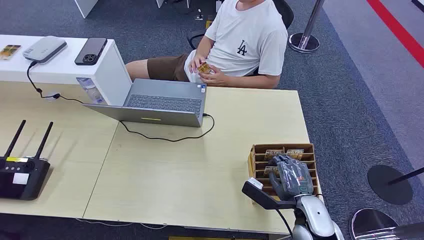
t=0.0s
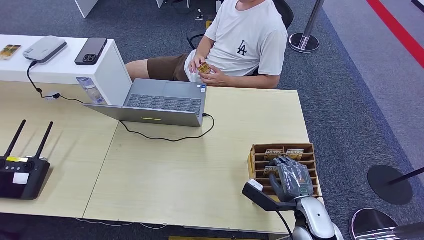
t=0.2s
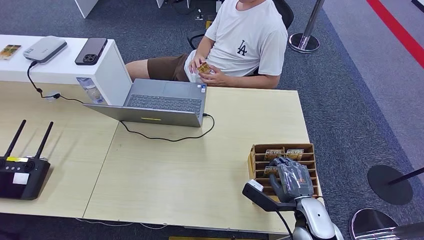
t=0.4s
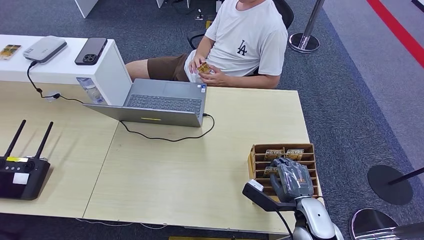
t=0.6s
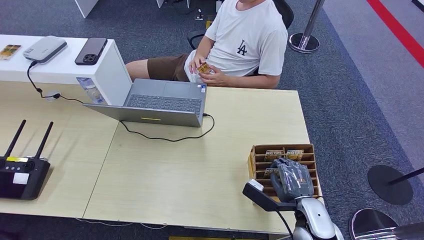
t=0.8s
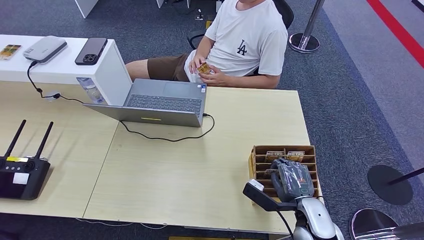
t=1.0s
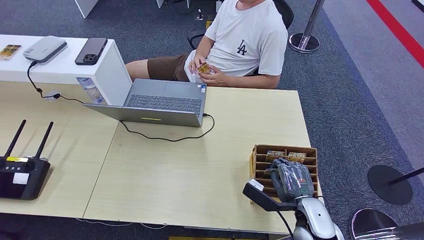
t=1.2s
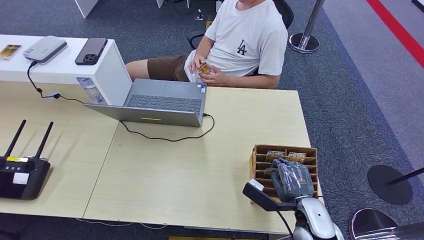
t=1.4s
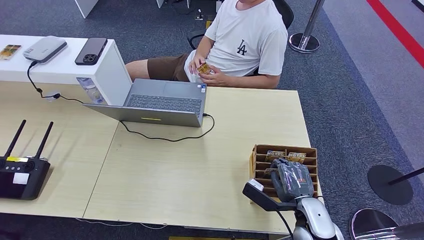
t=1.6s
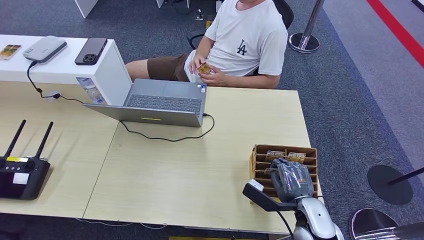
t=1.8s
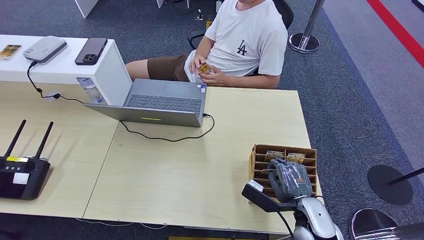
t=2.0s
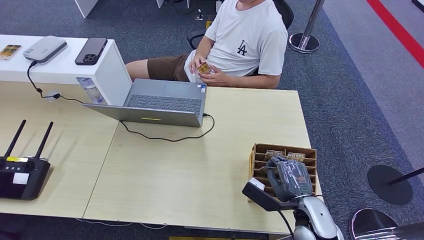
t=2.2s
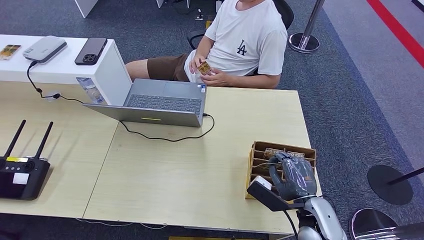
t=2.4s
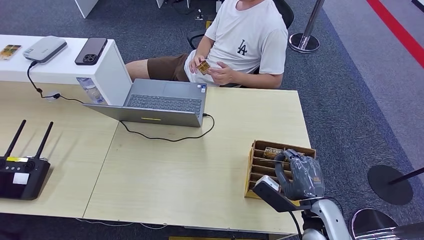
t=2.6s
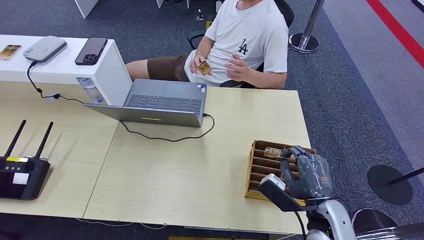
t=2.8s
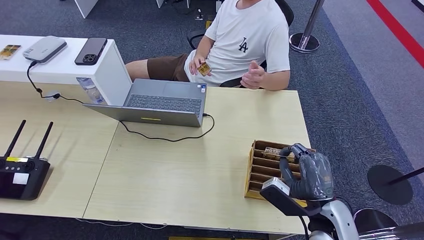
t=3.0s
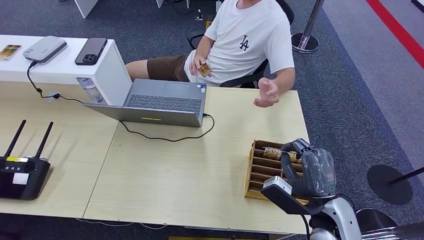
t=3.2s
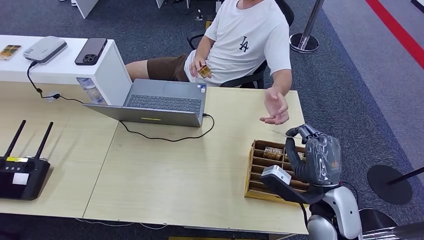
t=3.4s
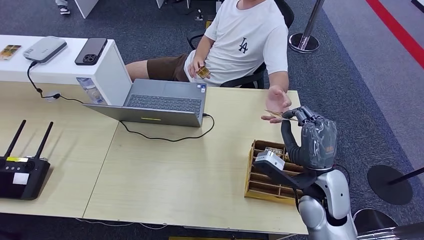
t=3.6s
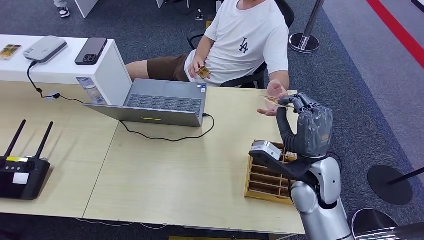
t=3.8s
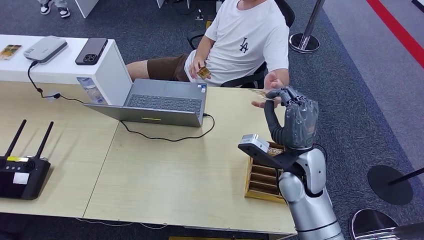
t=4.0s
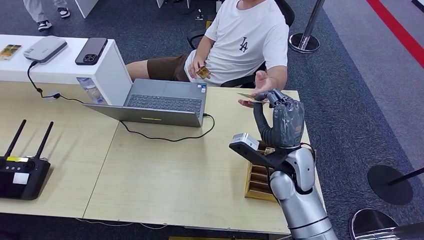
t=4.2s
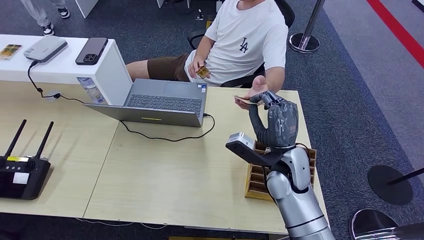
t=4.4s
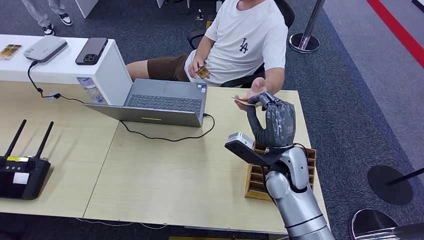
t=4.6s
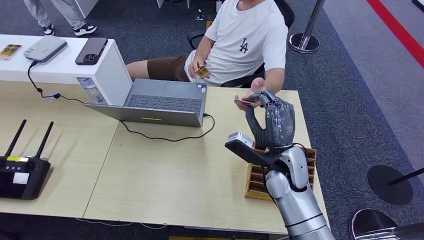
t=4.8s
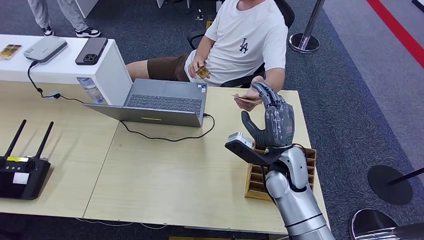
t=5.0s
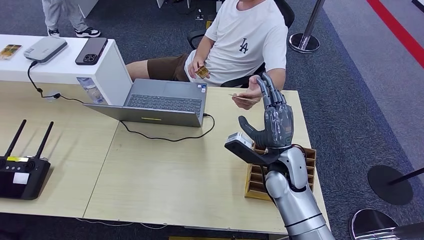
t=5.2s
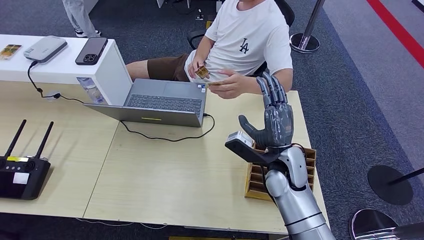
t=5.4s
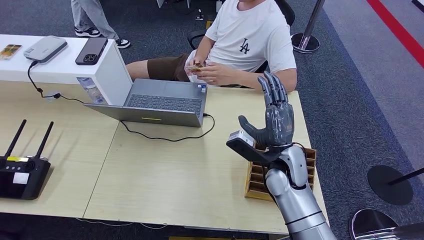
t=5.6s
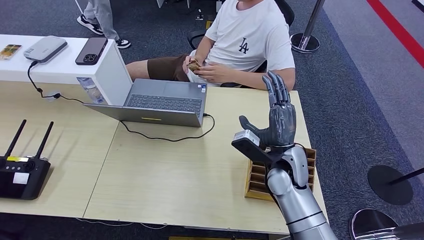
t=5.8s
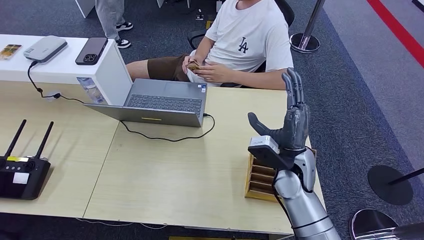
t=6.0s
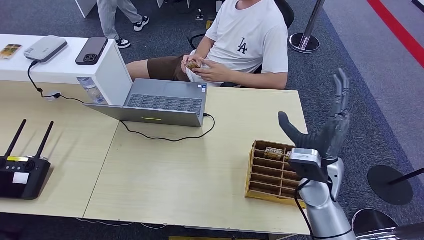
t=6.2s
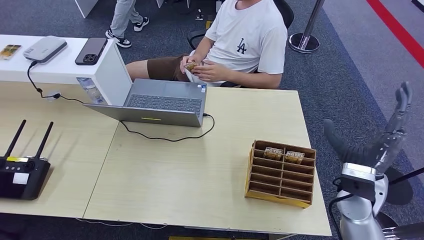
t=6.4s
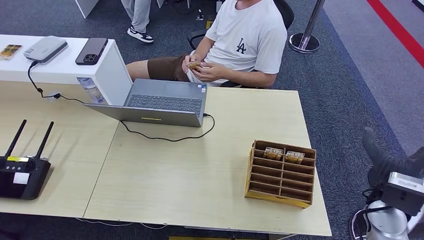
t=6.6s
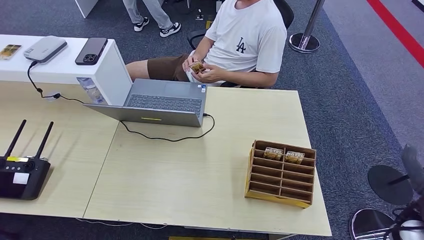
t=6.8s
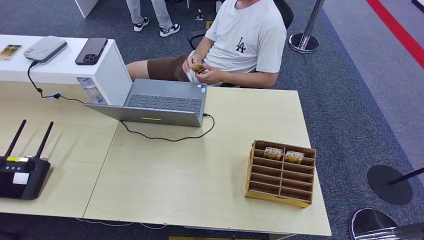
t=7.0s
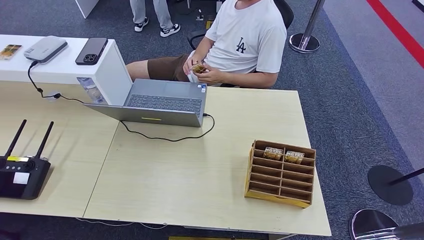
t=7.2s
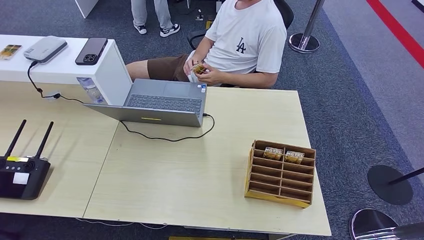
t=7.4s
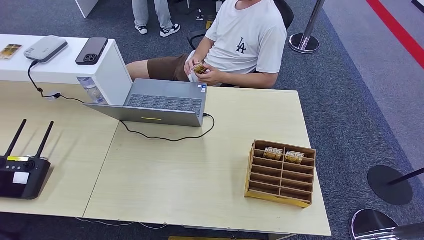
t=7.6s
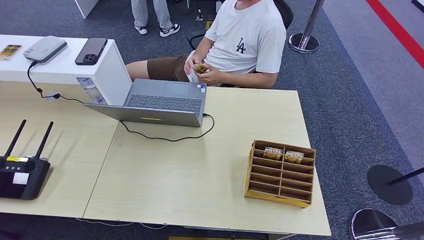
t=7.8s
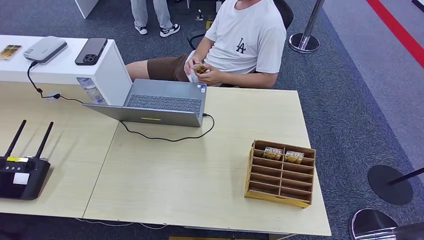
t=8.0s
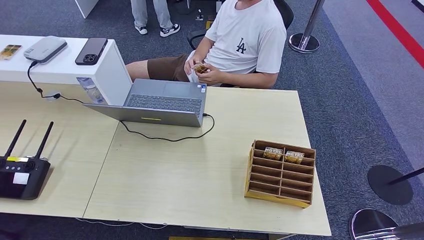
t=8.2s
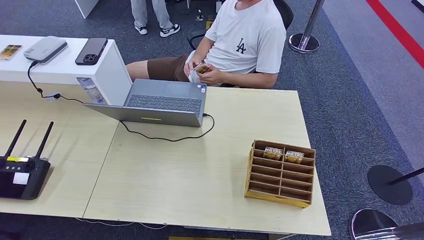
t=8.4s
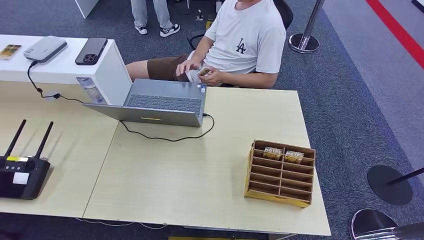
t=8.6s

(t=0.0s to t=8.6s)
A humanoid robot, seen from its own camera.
Step, t=0.0s - t=3.2s: Pick up the room card from the card holder.
Step, t=3.4s - t=8.4s: Hand the room card to the target.
t=1.4s - t=2.8s: The right hand heads upward, covering roughly 5 cm.
t=2.8s - t=4.4s: The right hand heads forward and to the left, covering about 15 cm.
t=4.4s - t=5.8s: The hands make only small movements.
t=5.8s - t=7.2s: The right hand moves to the right and backward, roughly 40 cm.
t=7.2s - t=8.6s: The right hand goes about 30 cm downward and to the left.
